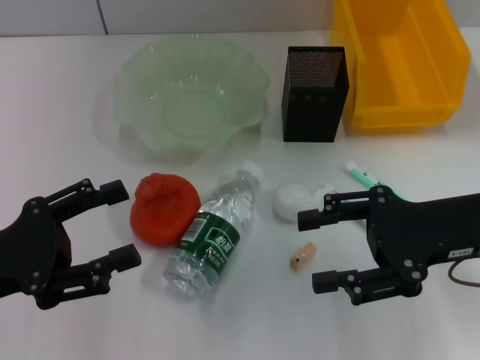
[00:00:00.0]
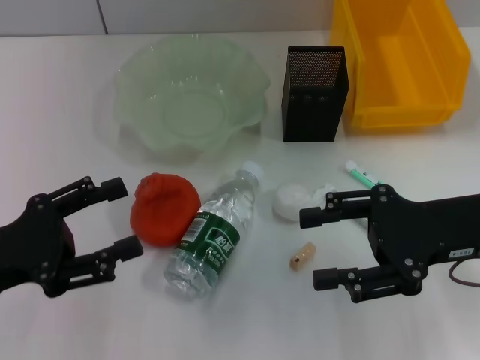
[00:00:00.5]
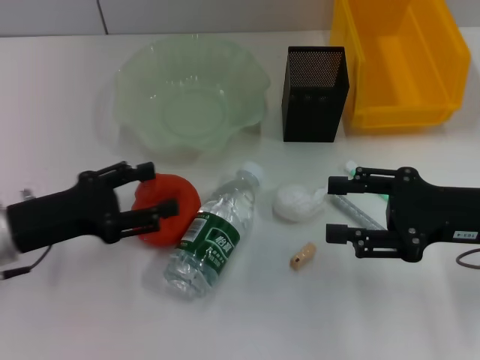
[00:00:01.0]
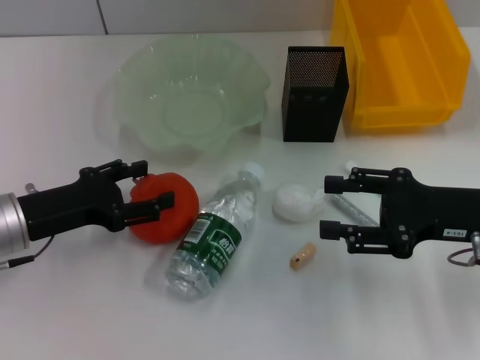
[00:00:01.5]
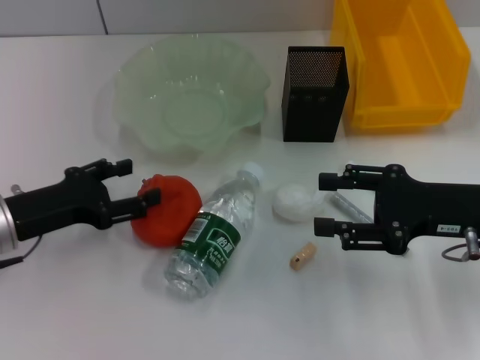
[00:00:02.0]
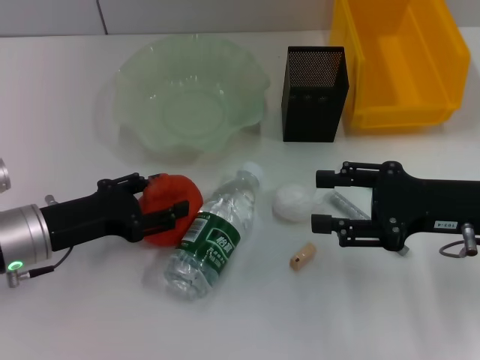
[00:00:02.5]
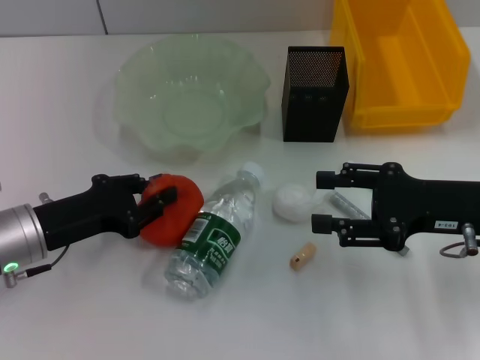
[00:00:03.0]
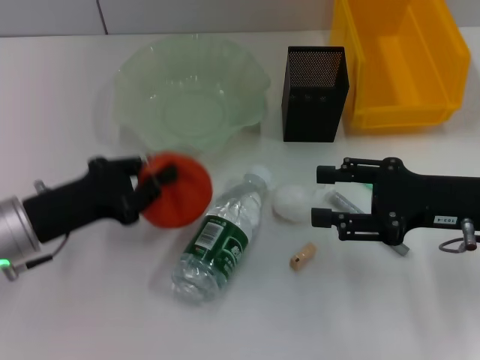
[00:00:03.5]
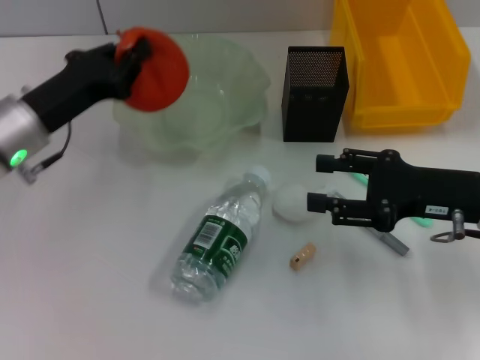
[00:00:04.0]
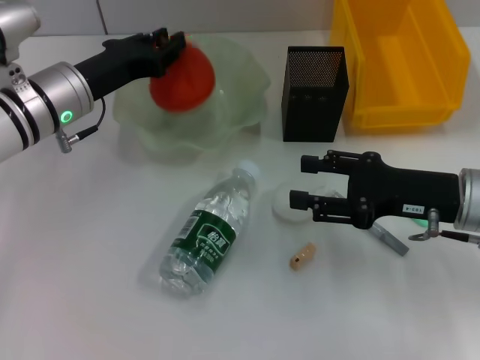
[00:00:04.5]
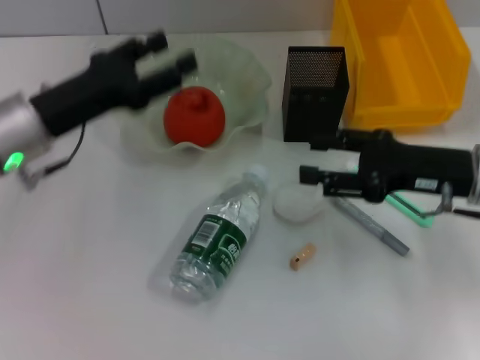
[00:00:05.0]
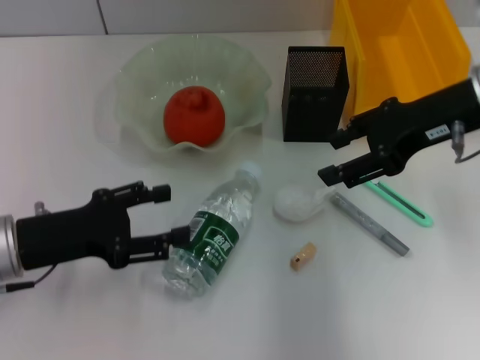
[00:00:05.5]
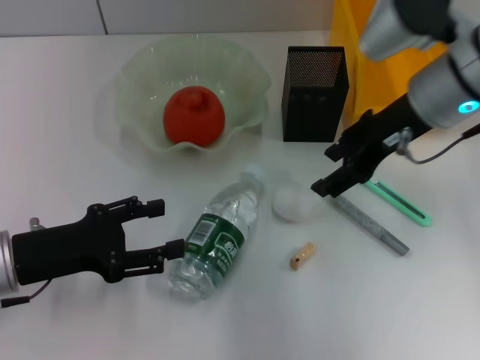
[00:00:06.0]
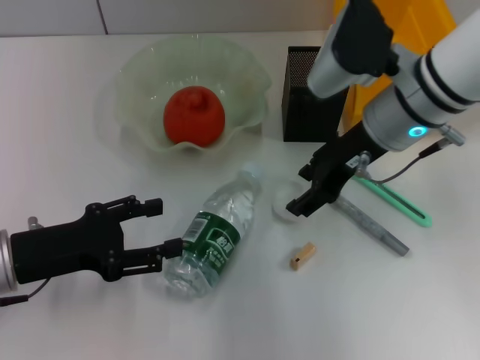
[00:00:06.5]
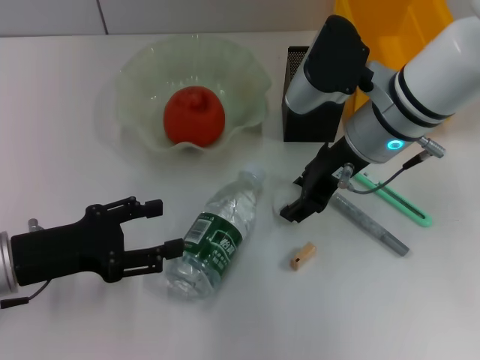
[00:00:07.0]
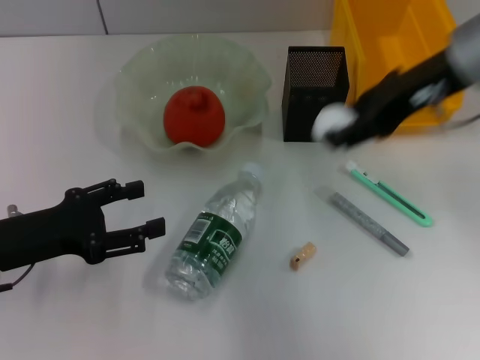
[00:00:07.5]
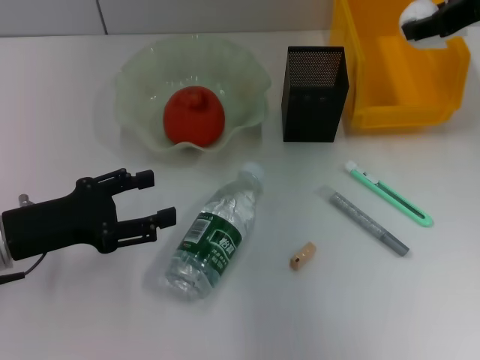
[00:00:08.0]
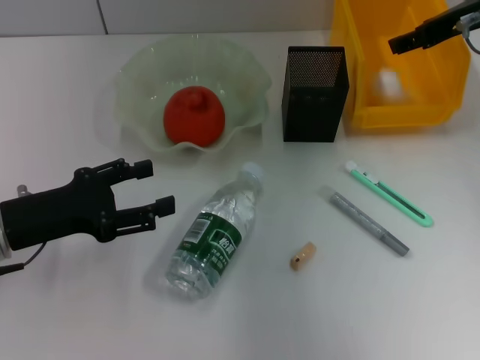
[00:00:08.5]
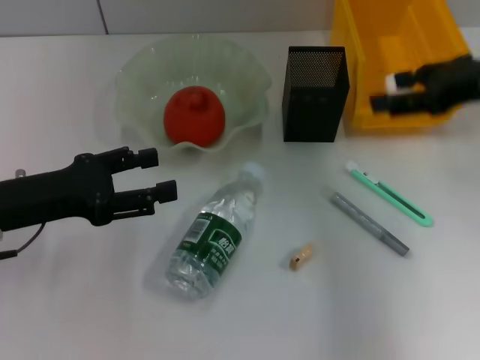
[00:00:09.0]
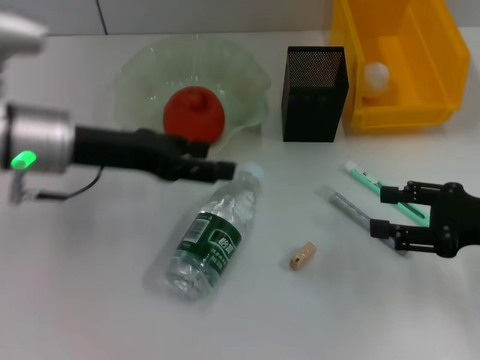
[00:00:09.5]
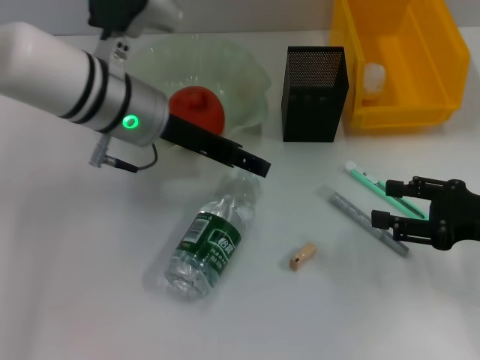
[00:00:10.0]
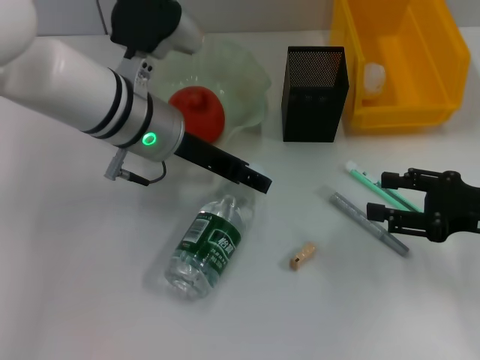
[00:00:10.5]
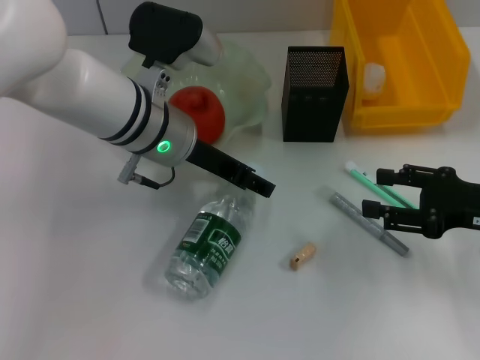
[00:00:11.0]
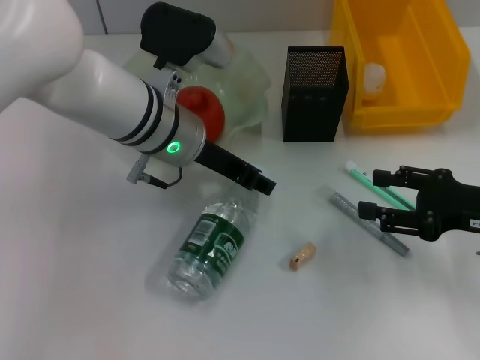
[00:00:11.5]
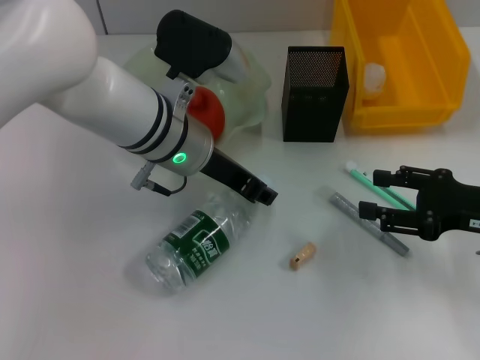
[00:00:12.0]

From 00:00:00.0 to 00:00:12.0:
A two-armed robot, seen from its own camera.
Step, from 00:00:00.0 to 00:00:03.0: Grab the orange with the left hand.
Step, from 00:00:03.5 to 00:00:04.5: Place the orange into the fruit bowl with the left hand.
Step, from 00:00:05.0 to 00:00:07.0: Grab the paper ball with the right hand.
Step, from 00:00:07.5 to 00:00:08.5: Place the paper ball into the trash can with the right hand.
Step, from 00:00:09.0 to 00:00:12.0: Grab the water bottle with the left hand.
From 00:00:00.0 to 00:00:02.0: The left gripper shifts roughly 10 cm forward.
From 00:00:02.0 to 00:00:04.0: The left gripper shifts approximately 5 cm forward, and closes.
From 00:00:04.0 to 00:00:06.0: The right gripper shifts about 15 cm upward, to the left and forward. The left gripper moves backward, roughly 10 cm, and opens.
From 00:00:06.0 to 00:00:08.0: The right gripper travels to the right and upward by roughly 10 cm.
From 00:00:08.0 to 00:00:10.0: The right gripper travels downward and backward by approximately 25 cm, while the left gripper moves to the right, forward and upward, approximately 20 cm.
From 00:00:10.0 to 00:00:12.0: The left gripper changes place by some 5 cm, and closes its fingers.

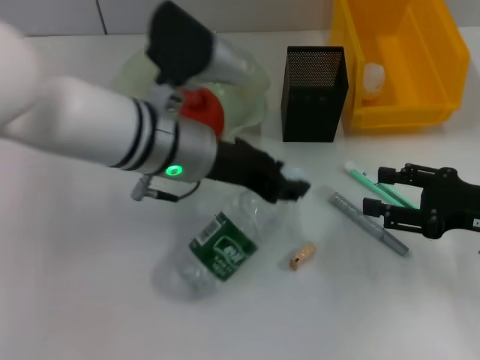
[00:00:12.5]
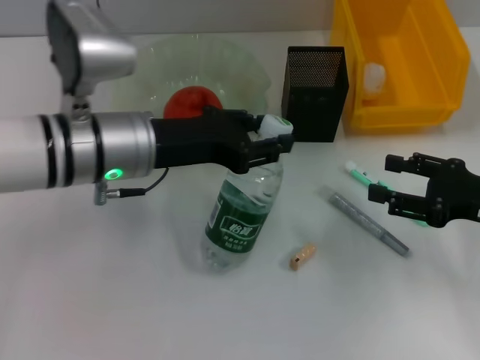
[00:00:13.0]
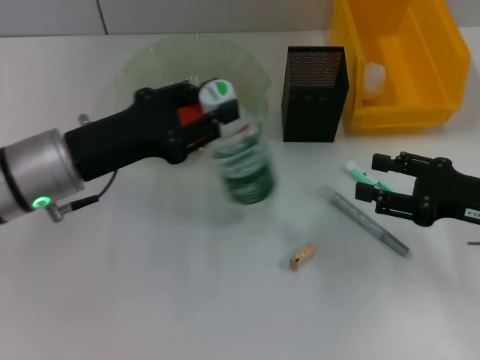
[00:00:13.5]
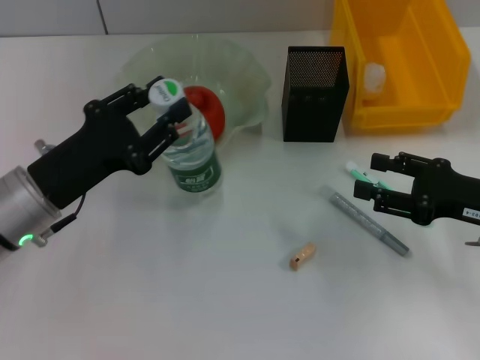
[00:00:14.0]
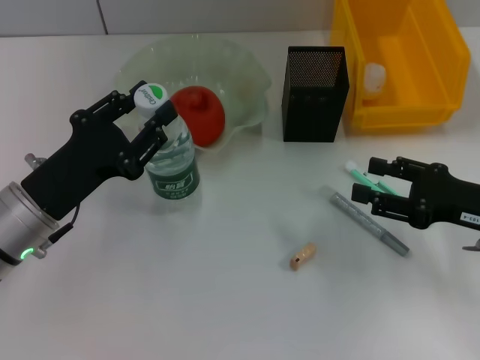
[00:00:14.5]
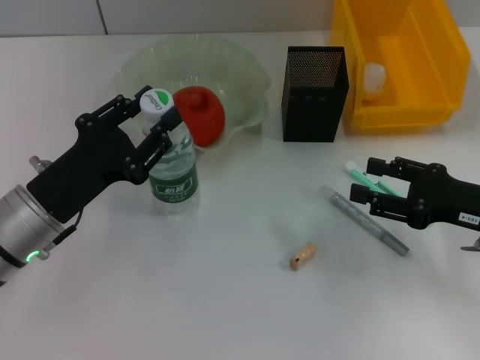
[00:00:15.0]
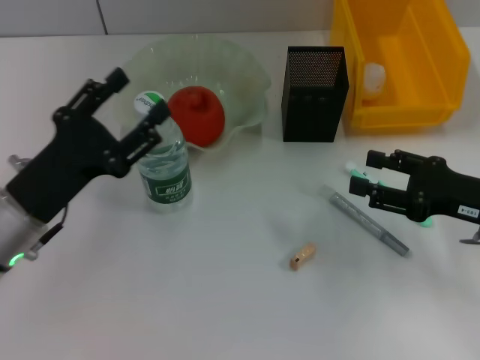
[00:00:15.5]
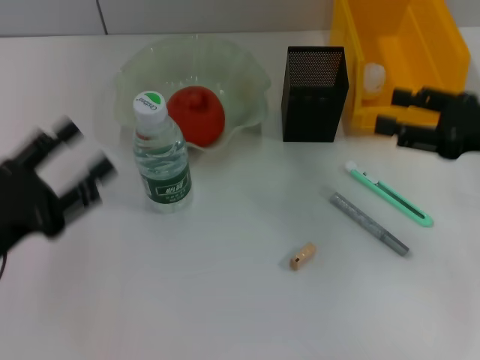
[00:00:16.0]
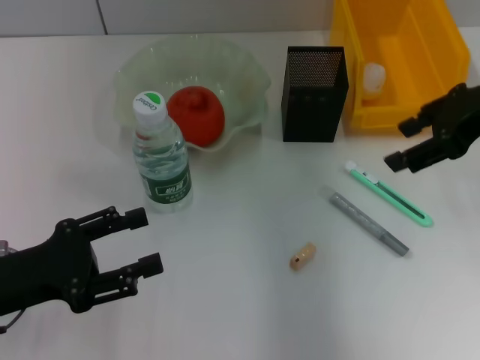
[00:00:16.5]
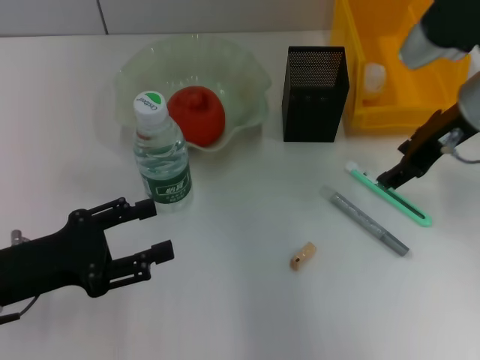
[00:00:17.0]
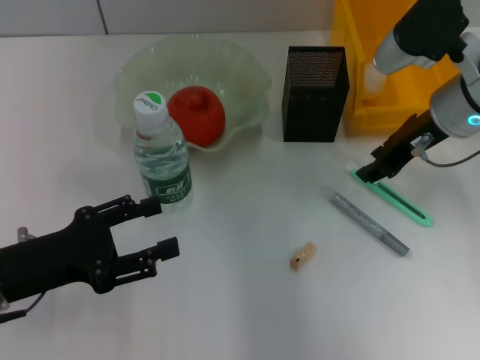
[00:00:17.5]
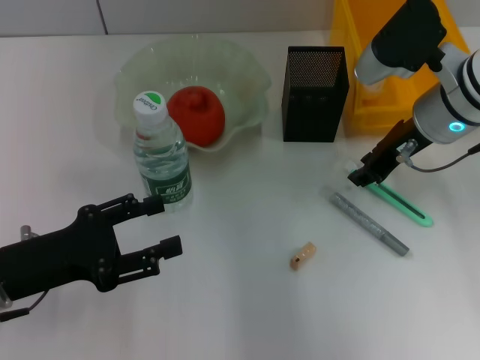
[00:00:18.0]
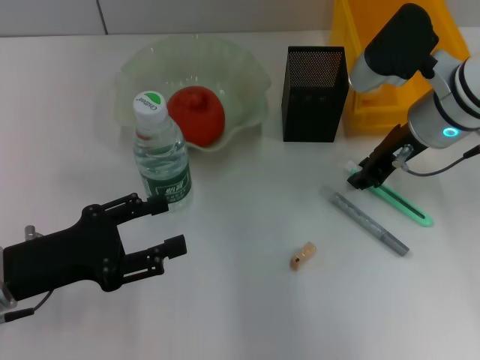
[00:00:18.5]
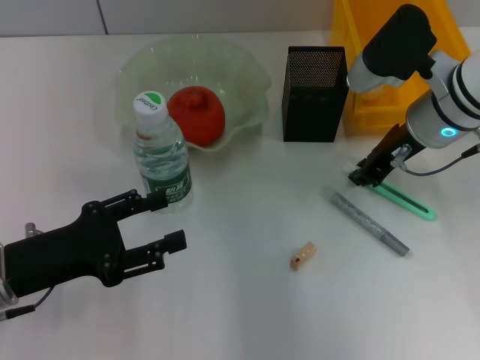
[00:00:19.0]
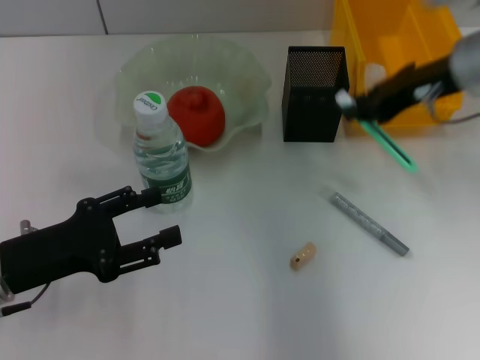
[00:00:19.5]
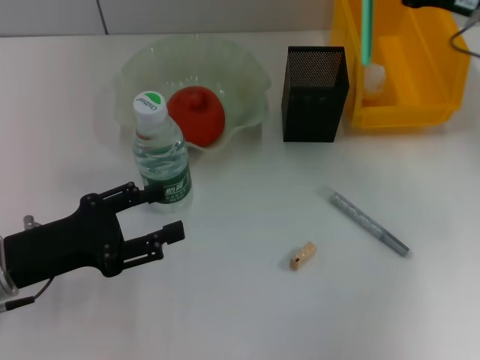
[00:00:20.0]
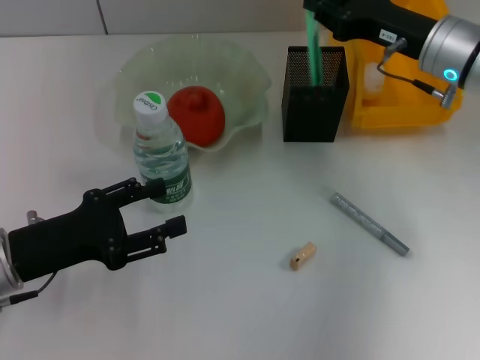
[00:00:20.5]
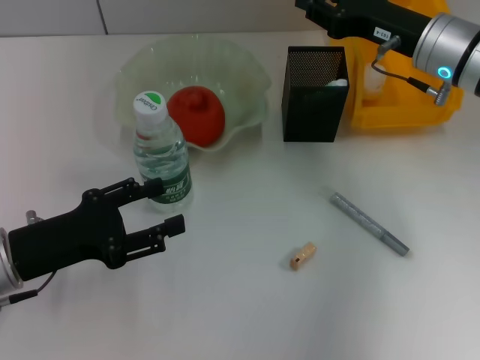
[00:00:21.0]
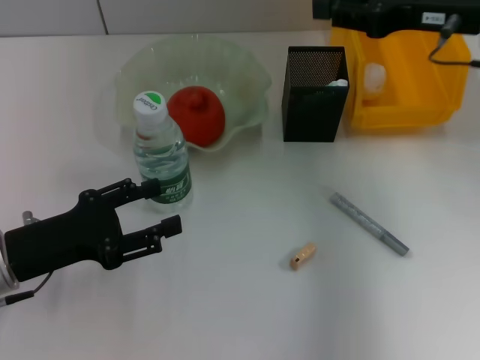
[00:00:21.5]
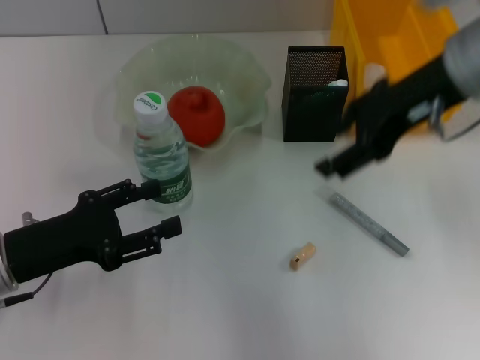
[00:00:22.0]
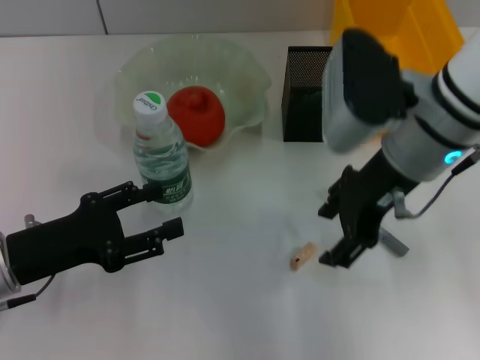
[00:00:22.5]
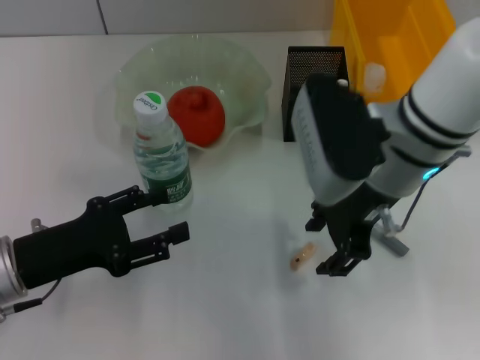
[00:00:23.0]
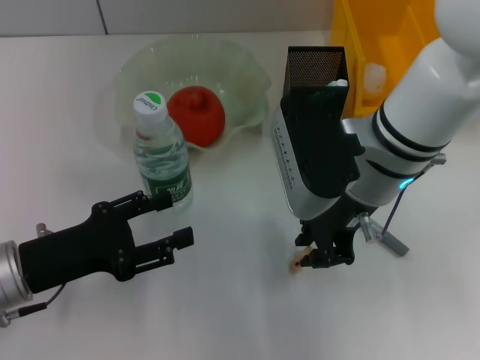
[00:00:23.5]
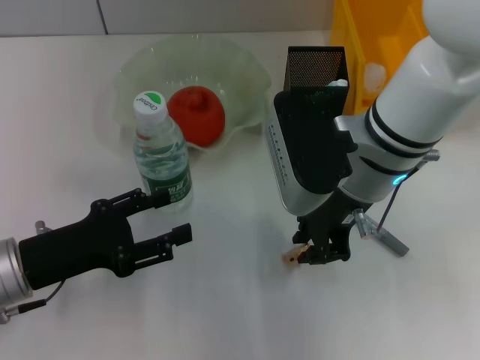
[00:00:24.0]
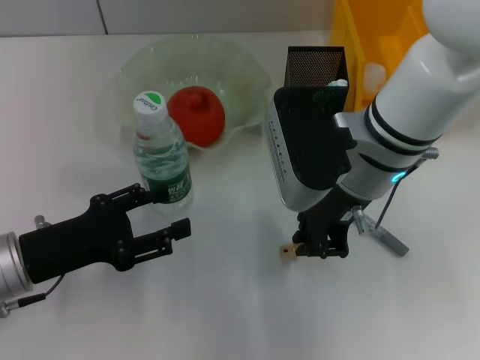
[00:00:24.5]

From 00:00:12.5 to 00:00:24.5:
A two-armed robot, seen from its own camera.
Step, from 00:00:12.5 to 00:00:15.5: Place the water bottle on the table with the left hand.
Step, from 00:00:16.0 to 00:00:19.0: Grab the blue utility knife with the right hand.
Step, from 00:00:19.5 to 00:00:21.0: Place the blue utility knife into the pen holder with the right hand.
Step, from 00:00:21.5 to 00:00:24.0: Grab the eraser with the right hand.
From 00:00:12.5 to 00:00:14.5: The left gripper shifts roughly 20 cm to the left, backward and downward.
From 00:00:14.5 to 00:00:16.5: The right gripper is displaced upward and forward by about 20 cm. The left gripper heads to the left and backward, covering roughly 10 cm, and opens.
From 00:00:16.5 to 00:00:18.5: The right gripper is displaced downward and to the left by approximately 10 cm, and closes its fingers.
From 00:00:18.5 to 00:00:20.5: The right gripper reaches roughly 10 cm to the right, then returns.
From 00:00:20.5 to 00:00:22.5: The right gripper is displaced to the left and backward by about 10 cm, and opens its fingers.
From 00:00:22.5 to 00:00:24.5: The right gripper shifts by approximately 5 cm, and closes its fingers.

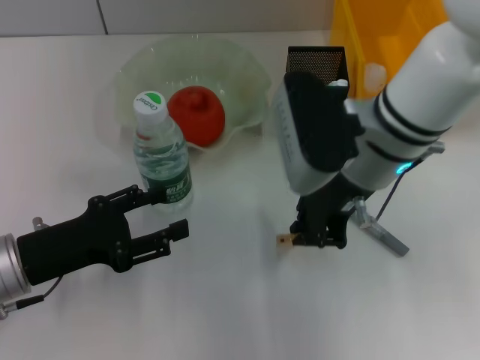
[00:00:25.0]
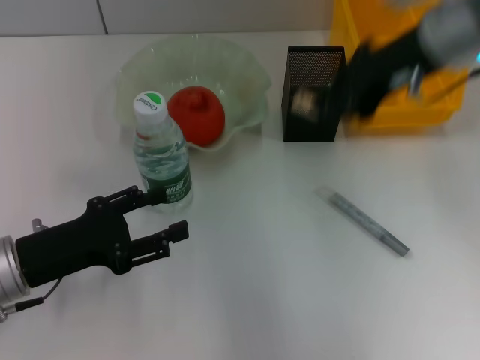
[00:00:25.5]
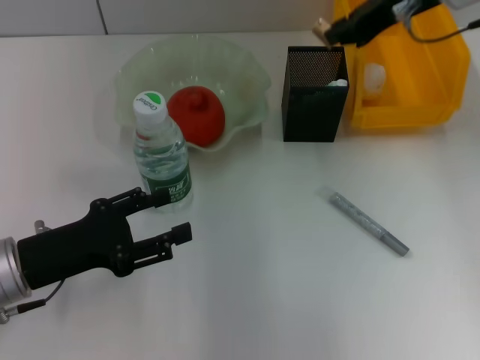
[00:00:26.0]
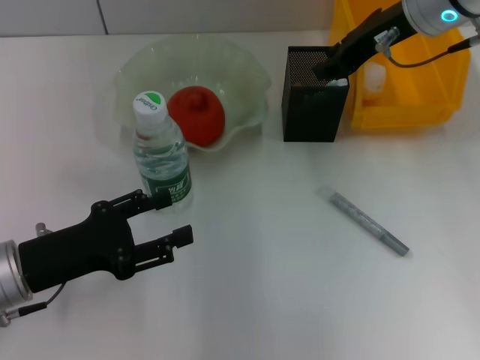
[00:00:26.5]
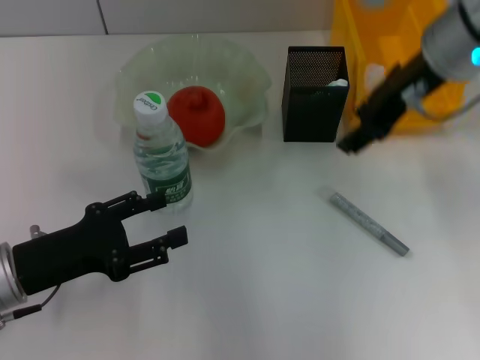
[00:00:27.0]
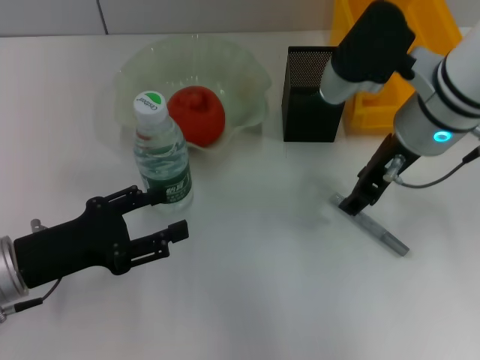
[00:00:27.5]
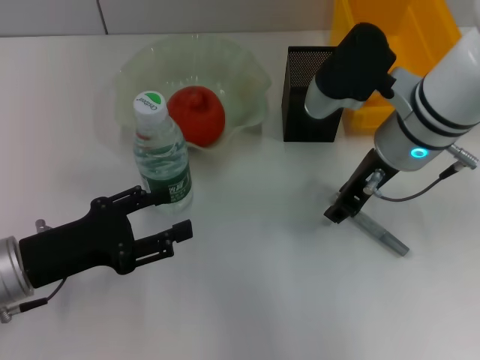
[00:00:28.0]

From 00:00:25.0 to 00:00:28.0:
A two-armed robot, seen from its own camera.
Step, from 00:00:25.0 to 00:00:26.5: Put the eraser into the pen holder with the right hand.
From 00:00:25.0 to 00:00:26.5: The right gripper shifts some 15 cm forward, to the right and upward.
From 00:00:26.5 to 00:00:28.0: The right gripper goes roughly 10 cm downward and backward, and opens up.
